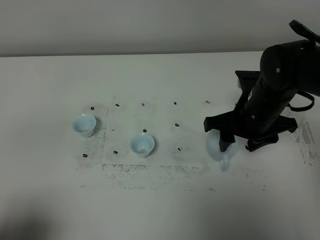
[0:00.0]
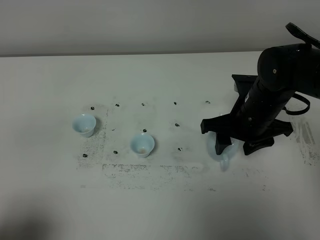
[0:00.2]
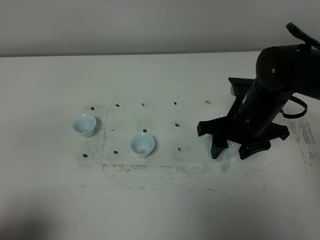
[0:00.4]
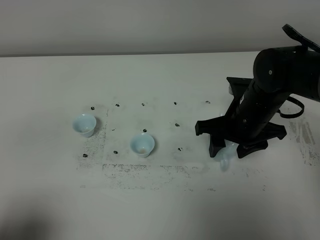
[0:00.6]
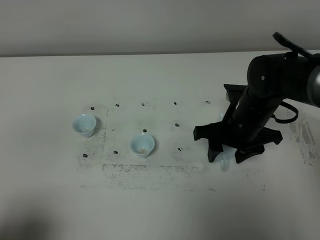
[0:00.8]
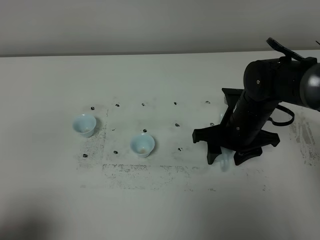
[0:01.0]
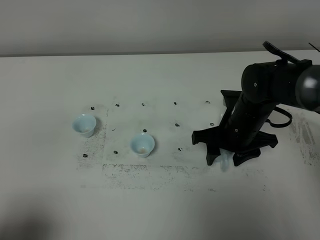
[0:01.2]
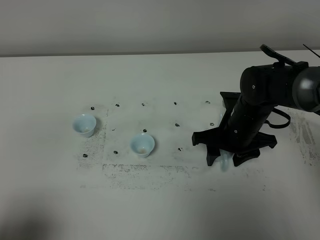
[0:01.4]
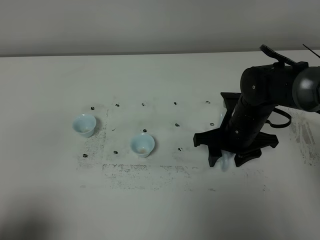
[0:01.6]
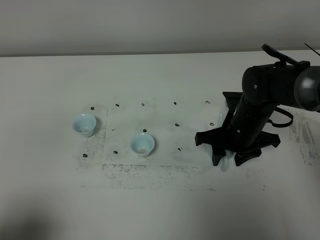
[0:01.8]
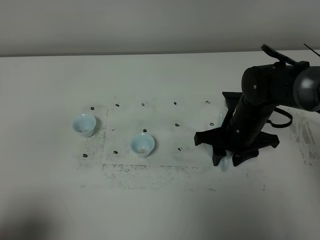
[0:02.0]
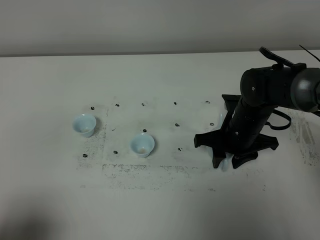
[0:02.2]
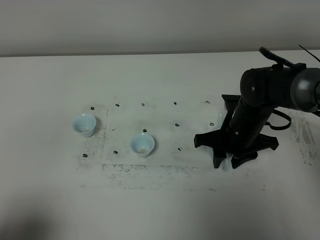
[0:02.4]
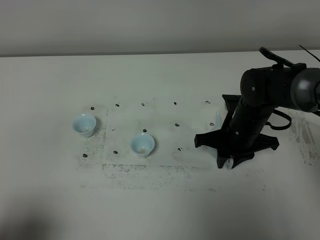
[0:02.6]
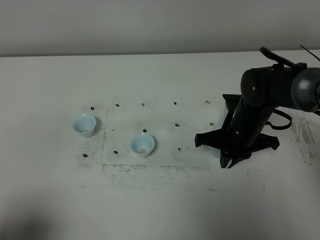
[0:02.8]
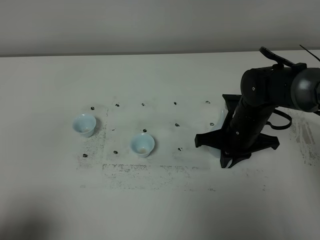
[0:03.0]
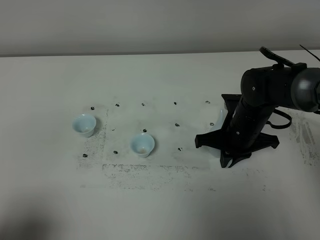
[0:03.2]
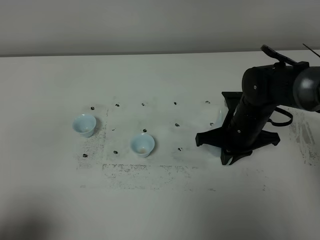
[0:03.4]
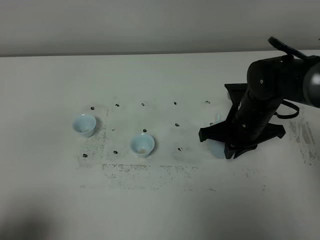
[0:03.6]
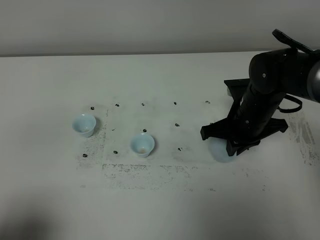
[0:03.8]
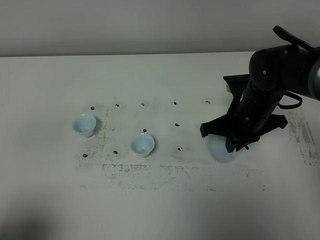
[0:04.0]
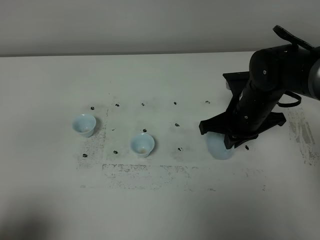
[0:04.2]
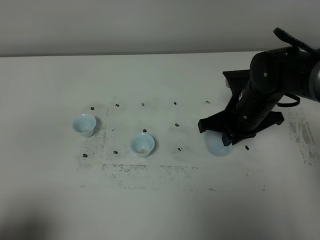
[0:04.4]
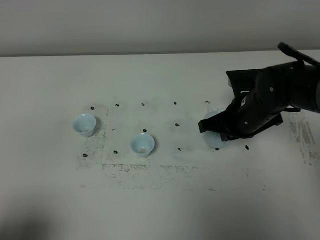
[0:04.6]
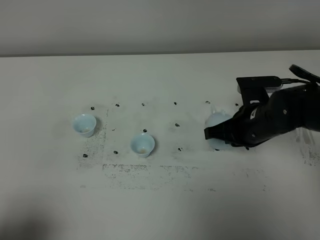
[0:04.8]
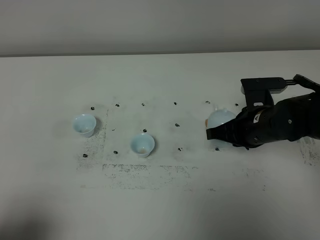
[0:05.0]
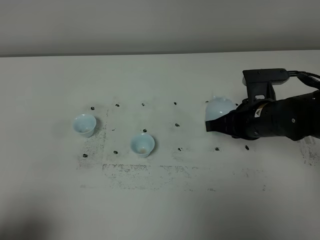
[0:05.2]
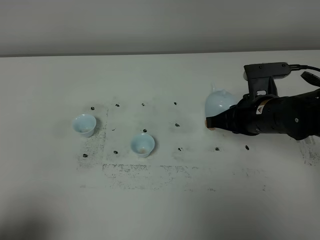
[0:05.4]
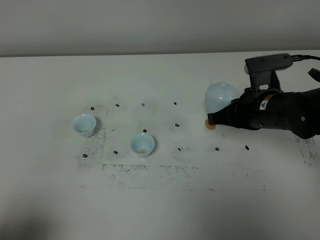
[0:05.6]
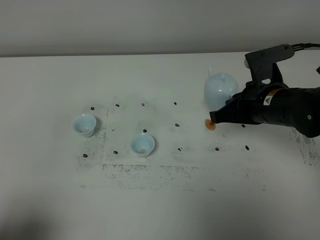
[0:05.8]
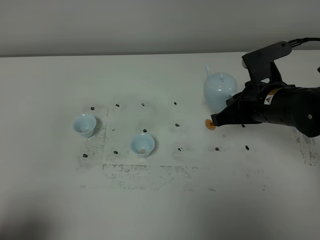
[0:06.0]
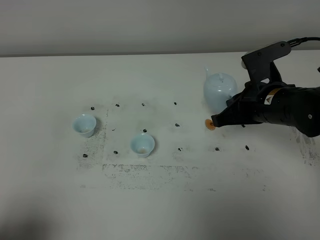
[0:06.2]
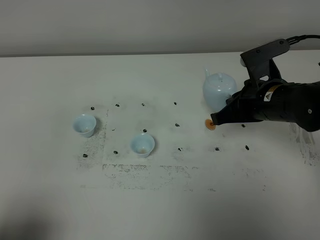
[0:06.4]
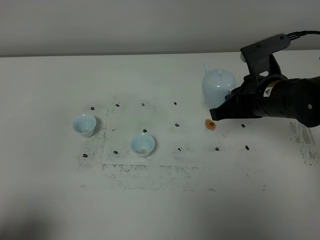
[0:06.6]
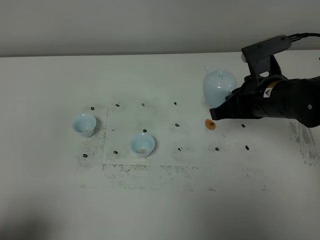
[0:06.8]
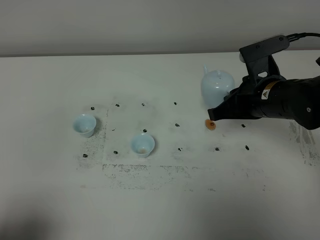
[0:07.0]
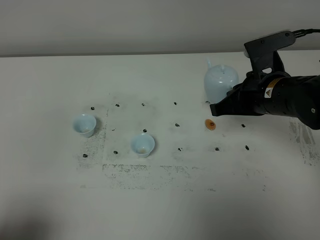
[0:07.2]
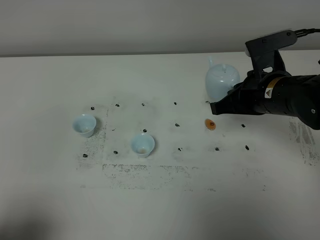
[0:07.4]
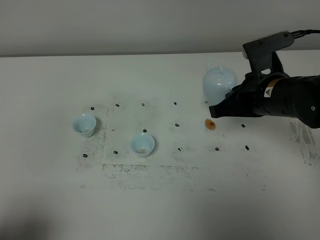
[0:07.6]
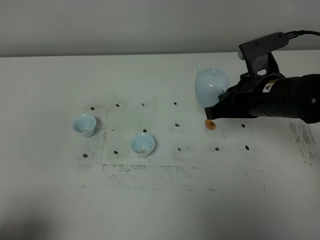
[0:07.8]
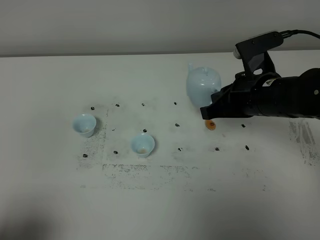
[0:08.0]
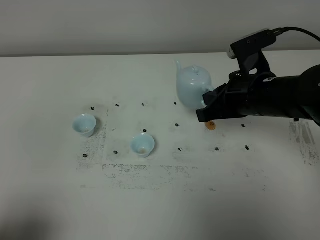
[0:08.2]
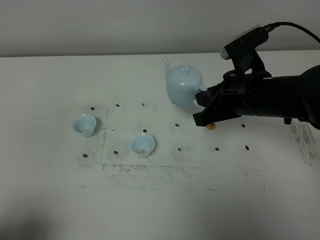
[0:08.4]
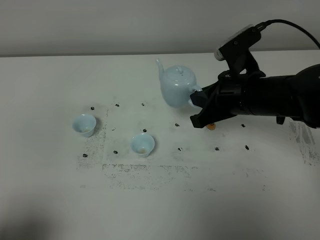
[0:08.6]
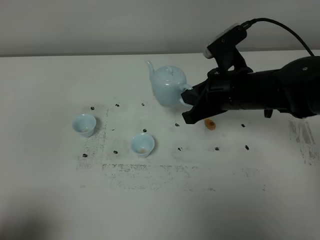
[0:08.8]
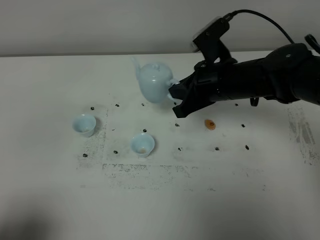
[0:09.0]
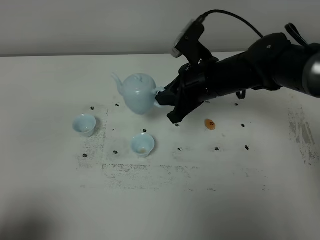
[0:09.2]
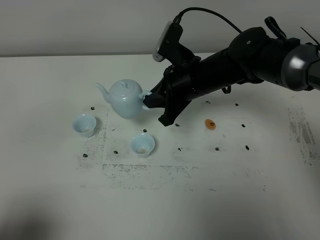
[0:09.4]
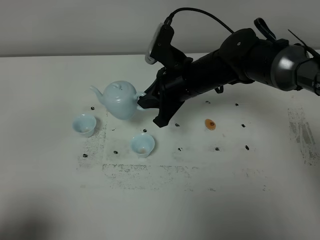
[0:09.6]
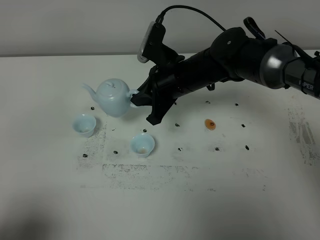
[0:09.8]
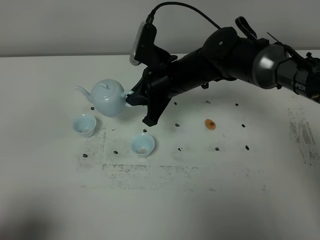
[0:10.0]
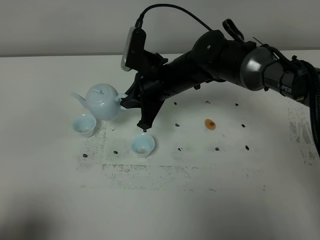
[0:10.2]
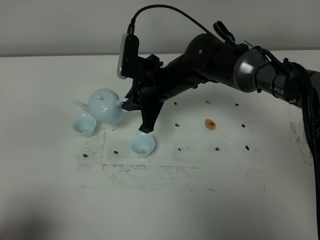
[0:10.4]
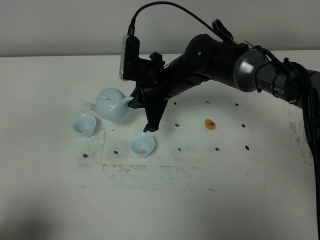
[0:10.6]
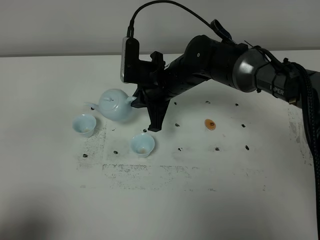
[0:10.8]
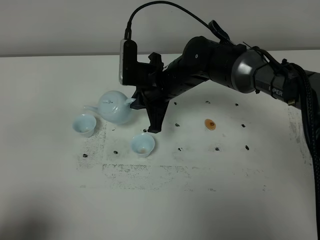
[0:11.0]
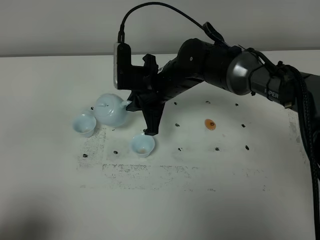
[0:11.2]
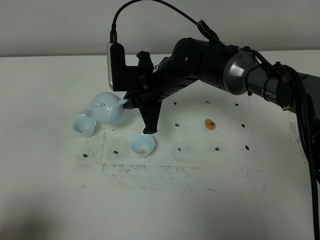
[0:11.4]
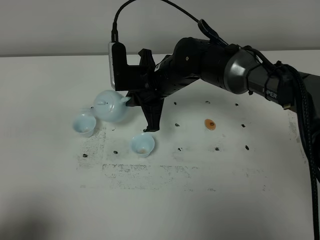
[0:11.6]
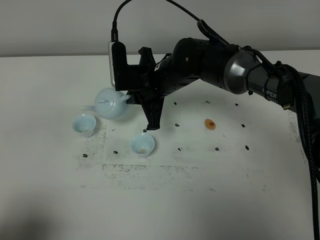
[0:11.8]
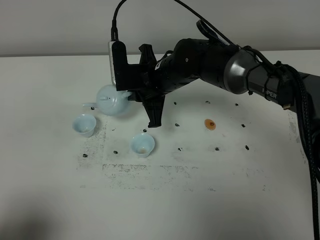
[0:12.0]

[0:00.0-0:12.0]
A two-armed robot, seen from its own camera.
Task of the whole recording: grasp the blue porcelain teapot and pour the tea into the two blue porcelain teacups one by one, put the blue porcelain teapot back in its original place.
Step, 0:00.0 to 0:05.2: Pick up the teapot with the right gripper.
0:00.0 to 0:01.6: The right gripper goes roughly 5 cm downward.
0:01.6 to 0:03.0: The right gripper closes its fingers.
0:03.0 to 0:04.4: The grippers stay close to where they were, moving slightly.
0:04.4 to 0:06.0: The right gripper ends up approximately 5 cm from where it was.
0:06.0 to 0:07.6: The grippers make only small movements.
0:07.6 to 0:09.0: The right gripper is displaced to the left by approximately 5 cm.
0:09.0 to 0:10.4: The right gripper heads to the left, covering roughly 10 cm.

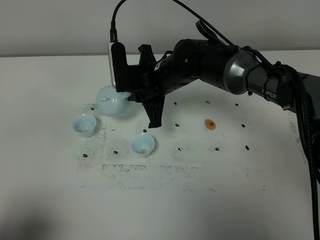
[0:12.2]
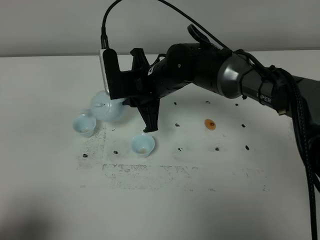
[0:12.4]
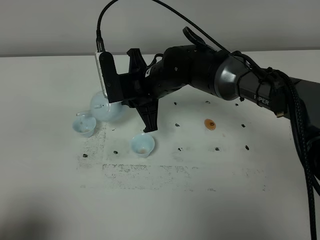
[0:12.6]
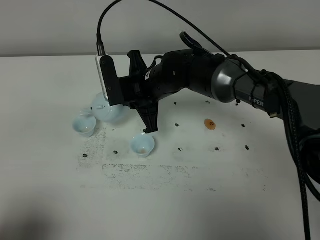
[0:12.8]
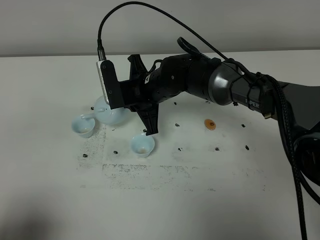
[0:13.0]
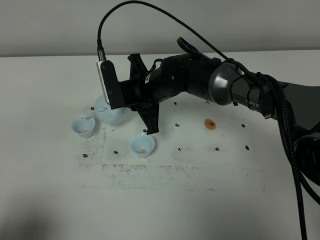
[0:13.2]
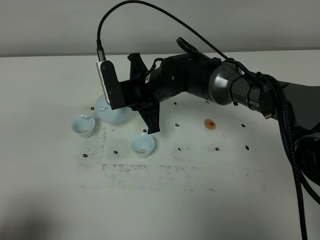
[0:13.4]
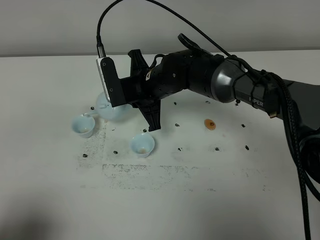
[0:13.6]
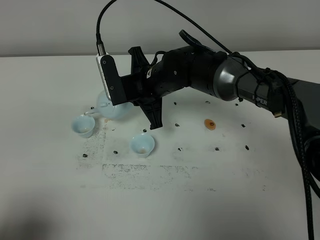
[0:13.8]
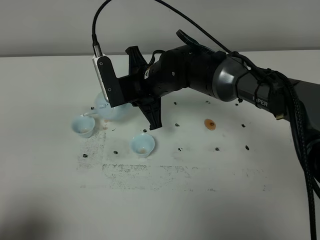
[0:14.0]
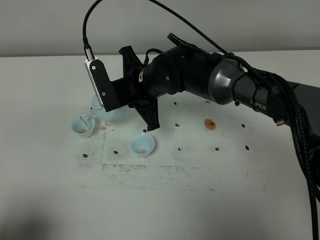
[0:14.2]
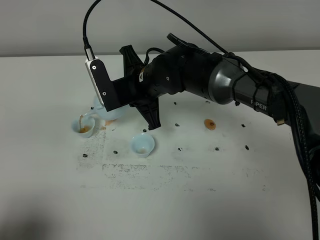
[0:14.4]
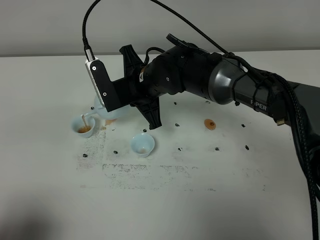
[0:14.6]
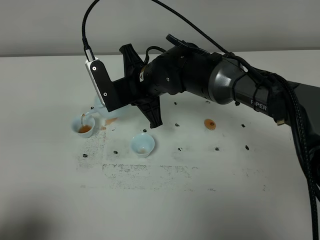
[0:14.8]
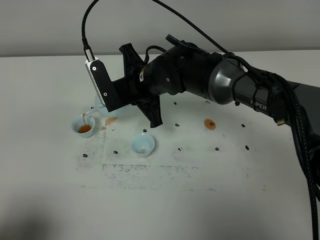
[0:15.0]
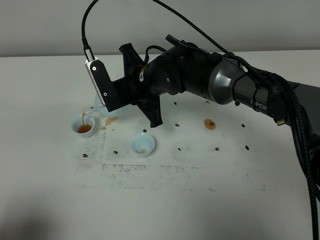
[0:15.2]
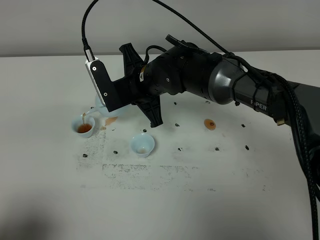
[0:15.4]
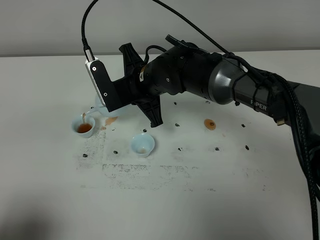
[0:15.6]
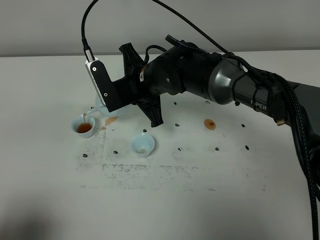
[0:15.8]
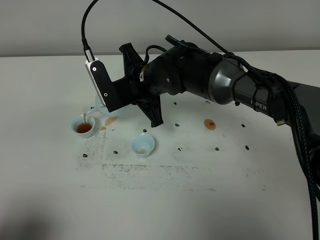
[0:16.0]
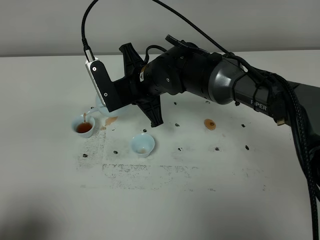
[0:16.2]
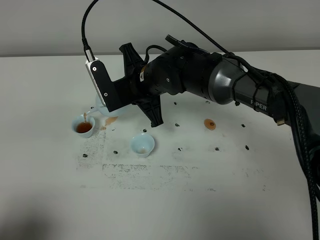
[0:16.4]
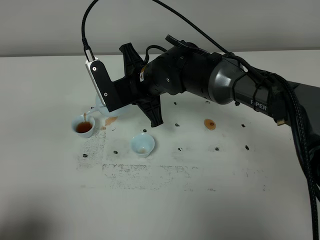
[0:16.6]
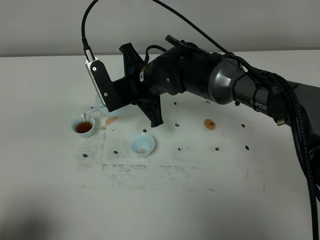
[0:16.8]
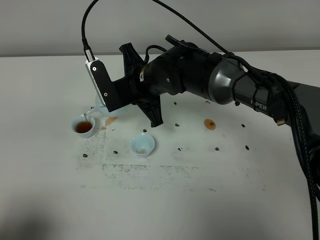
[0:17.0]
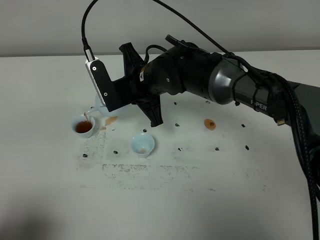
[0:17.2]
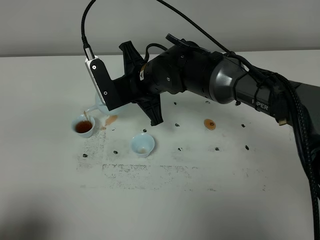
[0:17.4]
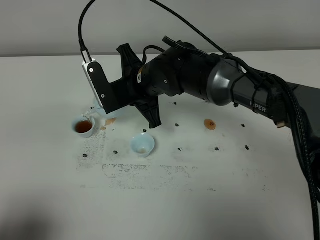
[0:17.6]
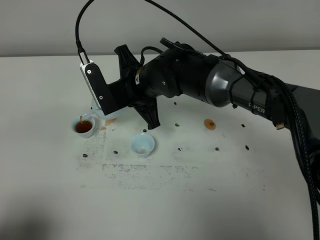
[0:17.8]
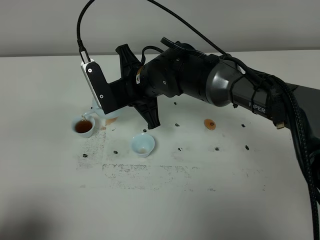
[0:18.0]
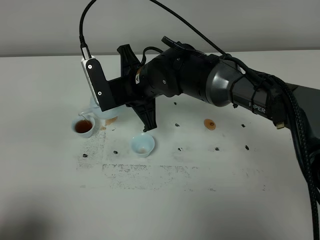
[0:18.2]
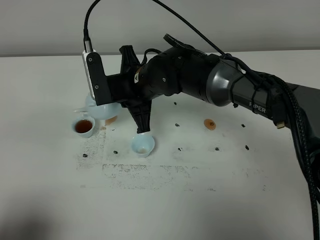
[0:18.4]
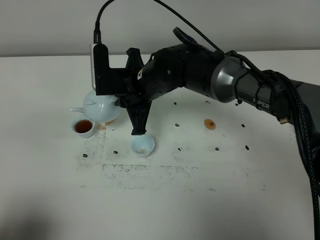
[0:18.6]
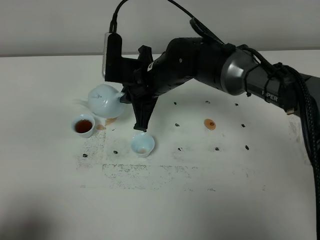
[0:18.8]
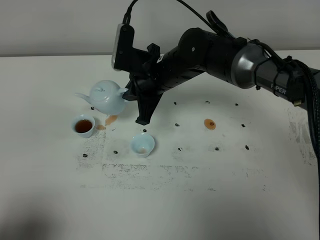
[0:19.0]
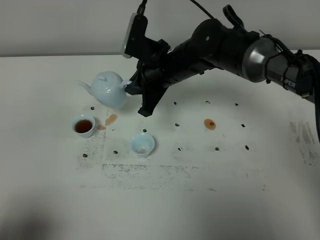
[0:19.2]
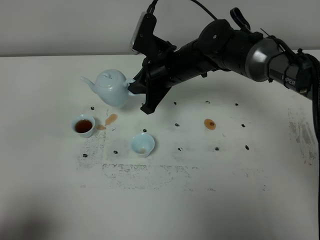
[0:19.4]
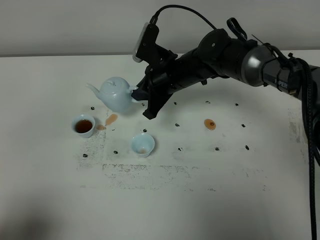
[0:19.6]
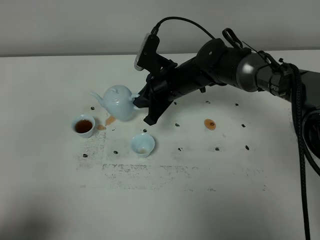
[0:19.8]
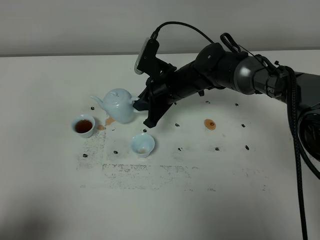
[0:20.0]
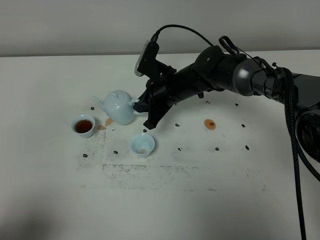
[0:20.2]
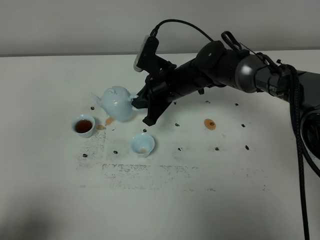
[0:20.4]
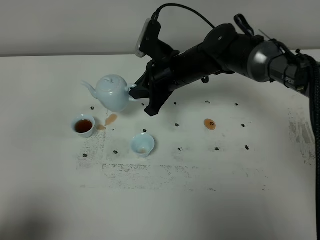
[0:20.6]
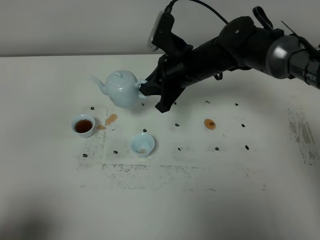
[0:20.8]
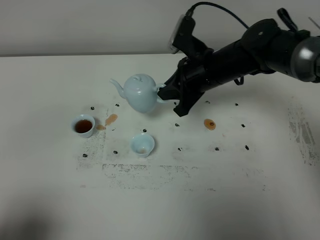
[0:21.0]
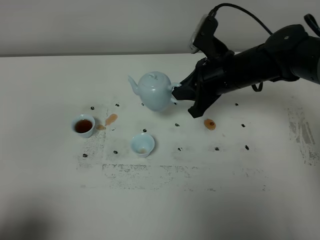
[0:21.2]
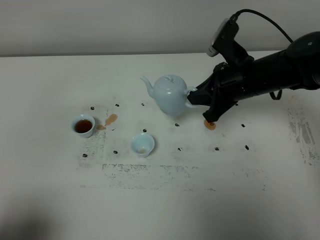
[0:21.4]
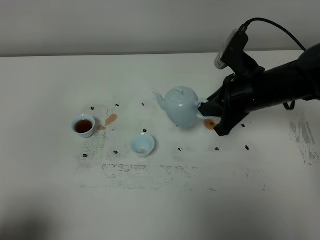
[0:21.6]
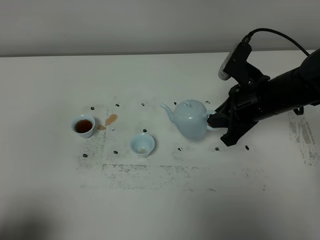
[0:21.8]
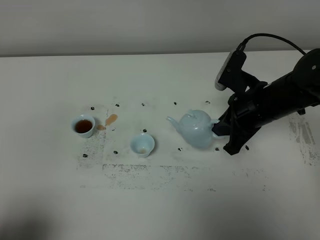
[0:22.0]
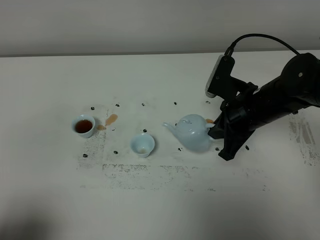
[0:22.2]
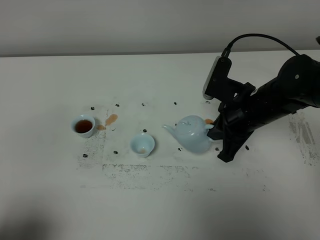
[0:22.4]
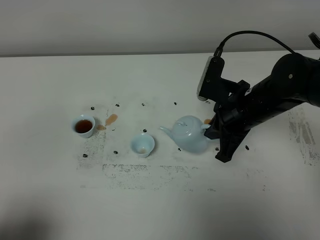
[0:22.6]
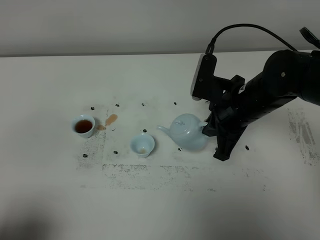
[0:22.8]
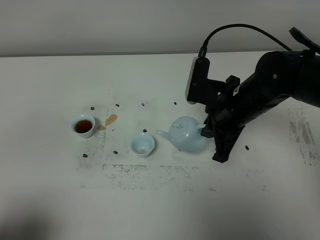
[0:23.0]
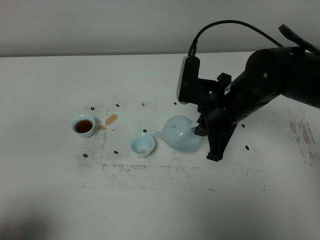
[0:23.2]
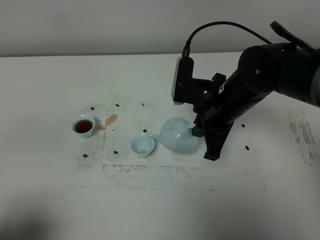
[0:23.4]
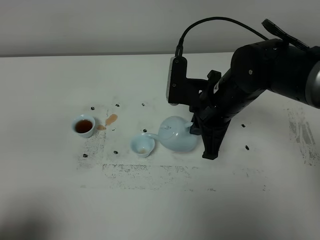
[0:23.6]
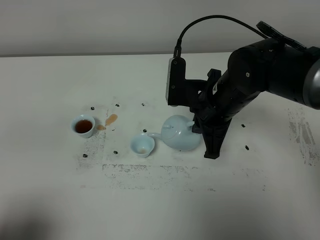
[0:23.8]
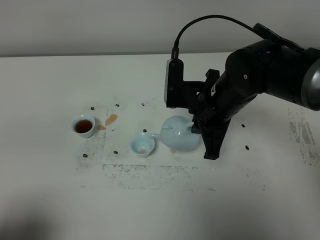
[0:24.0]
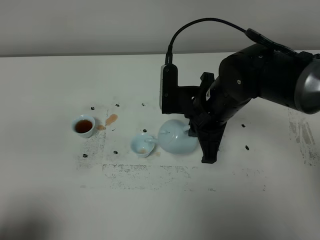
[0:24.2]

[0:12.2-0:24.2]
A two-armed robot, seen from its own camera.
Task of the whole recording: grasp the blue porcelain teapot and pour the tea into the two blue porcelain teacups one by one, put the blue porcelain teapot back in its original place.
0:12.2 to 0:13.8: The grippers stay close to where they were, moving slightly.
0:13.8 to 0:15.2: The grippers move only a little.
0:15.2 to 0:18.2: Both grippers stay put.
0:18.2 to 0:19.8: The right gripper heads to the right, forward and downward, covering roughly 10 cm.
0:19.8 to 0:21.2: The right gripper is displaced to the right and upward by approximately 10 cm.
0:21.2 to 0:22.6: The right gripper goes roughly 5 cm backward.
0:22.6 to 0:24.2: The right gripper goes some 5 cm to the left.
